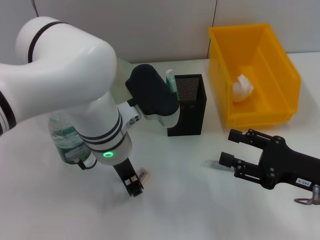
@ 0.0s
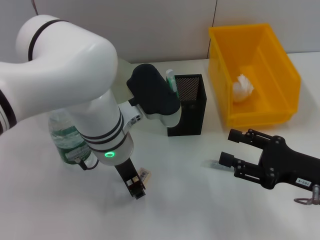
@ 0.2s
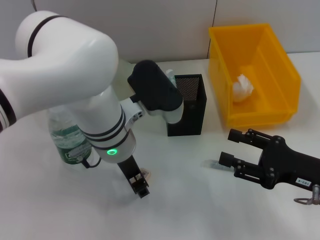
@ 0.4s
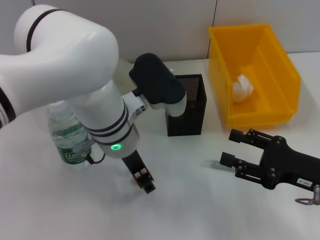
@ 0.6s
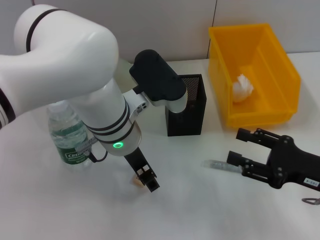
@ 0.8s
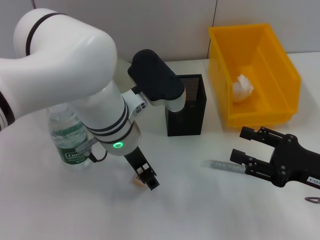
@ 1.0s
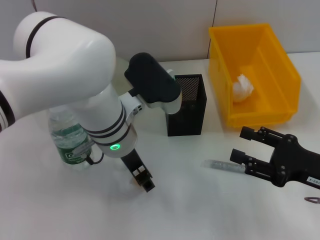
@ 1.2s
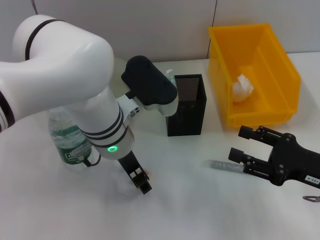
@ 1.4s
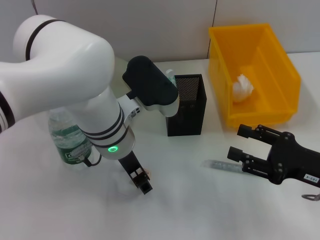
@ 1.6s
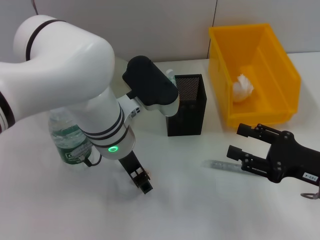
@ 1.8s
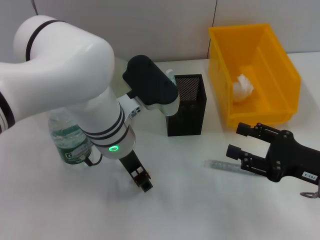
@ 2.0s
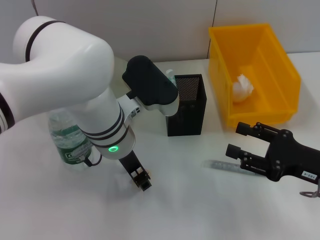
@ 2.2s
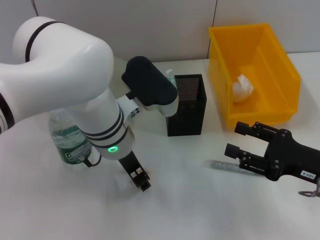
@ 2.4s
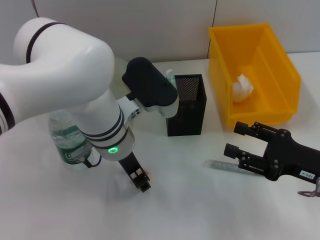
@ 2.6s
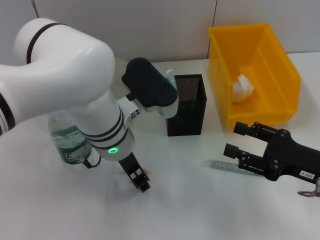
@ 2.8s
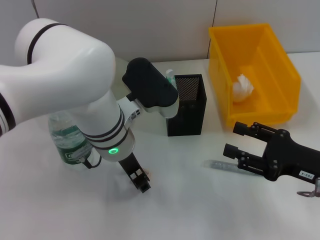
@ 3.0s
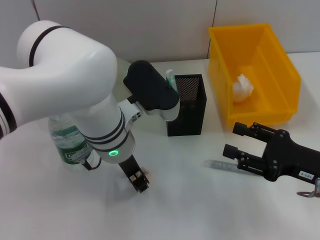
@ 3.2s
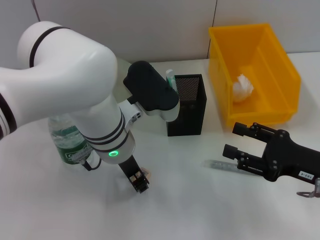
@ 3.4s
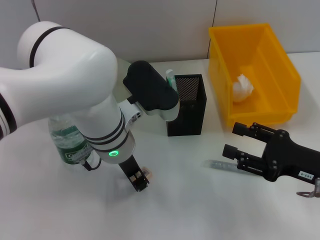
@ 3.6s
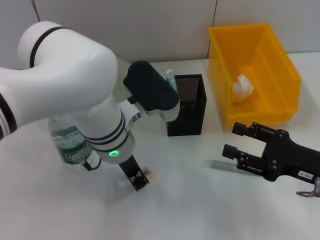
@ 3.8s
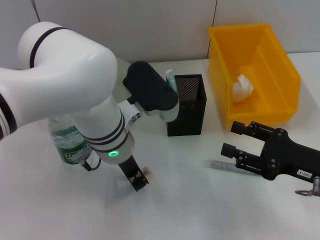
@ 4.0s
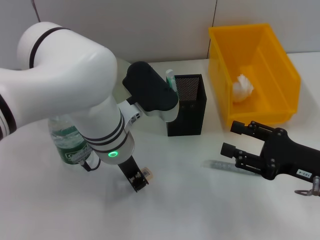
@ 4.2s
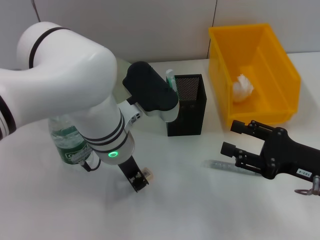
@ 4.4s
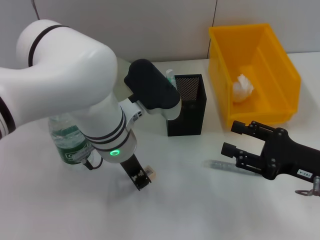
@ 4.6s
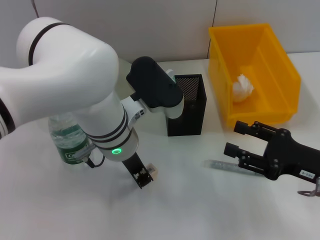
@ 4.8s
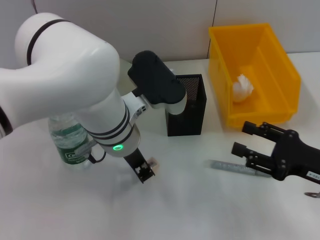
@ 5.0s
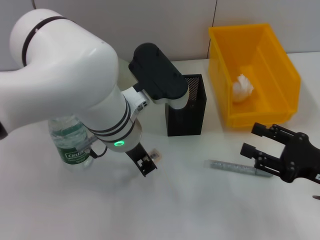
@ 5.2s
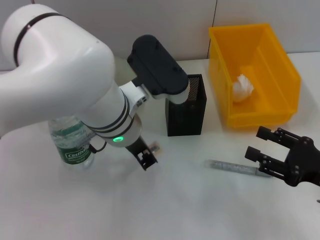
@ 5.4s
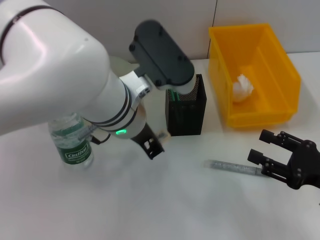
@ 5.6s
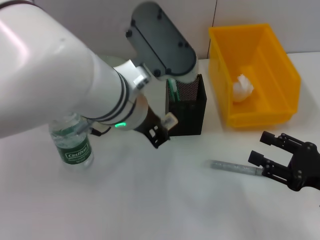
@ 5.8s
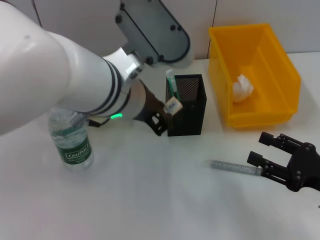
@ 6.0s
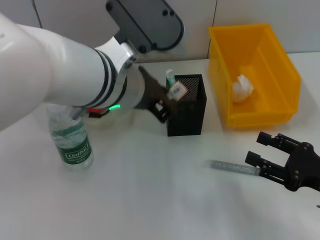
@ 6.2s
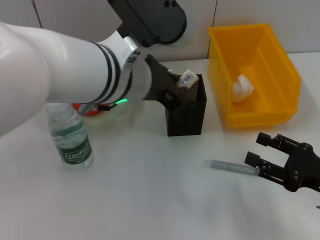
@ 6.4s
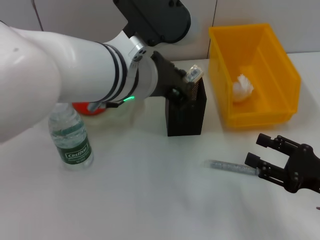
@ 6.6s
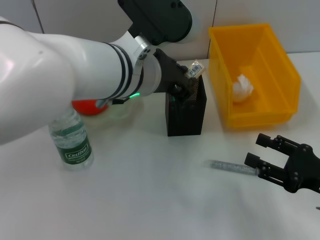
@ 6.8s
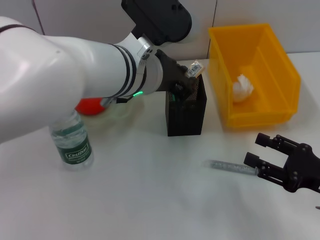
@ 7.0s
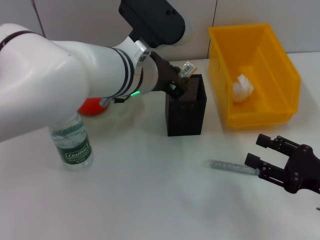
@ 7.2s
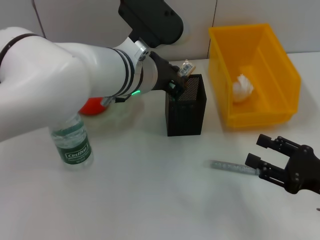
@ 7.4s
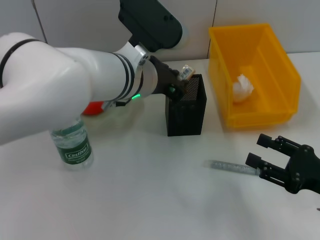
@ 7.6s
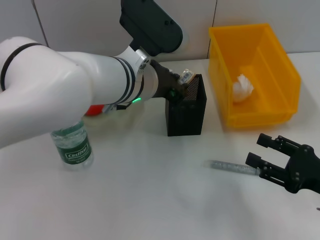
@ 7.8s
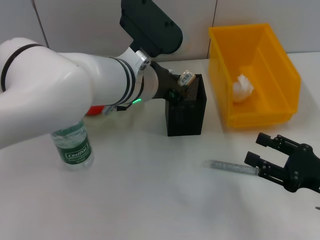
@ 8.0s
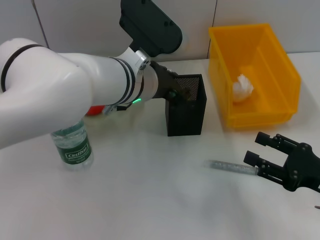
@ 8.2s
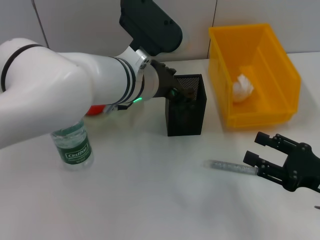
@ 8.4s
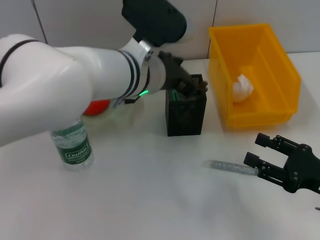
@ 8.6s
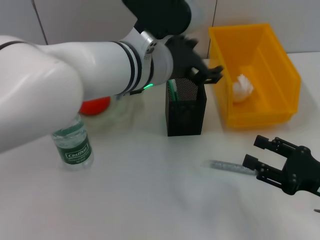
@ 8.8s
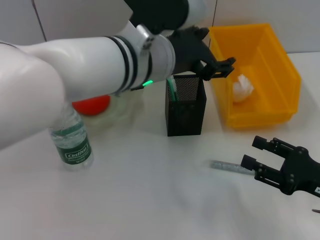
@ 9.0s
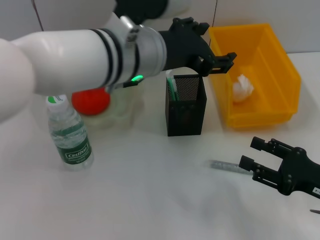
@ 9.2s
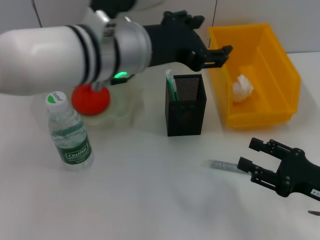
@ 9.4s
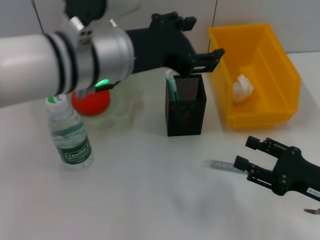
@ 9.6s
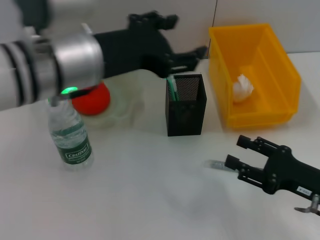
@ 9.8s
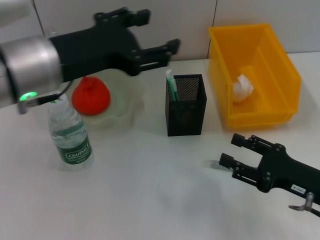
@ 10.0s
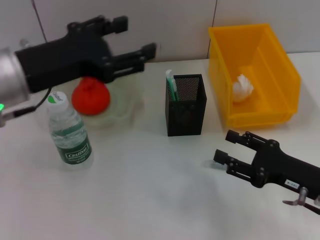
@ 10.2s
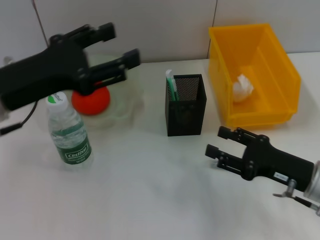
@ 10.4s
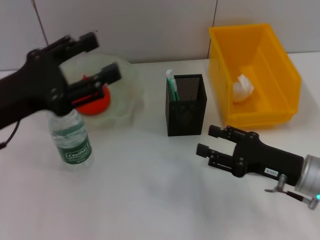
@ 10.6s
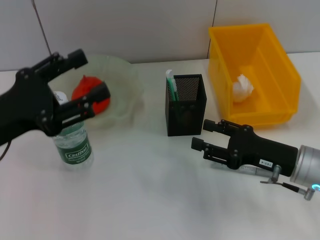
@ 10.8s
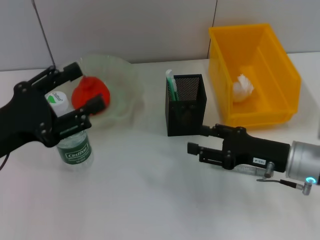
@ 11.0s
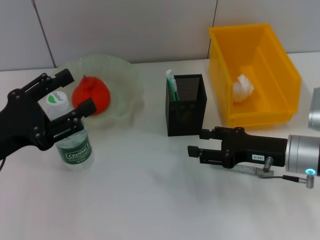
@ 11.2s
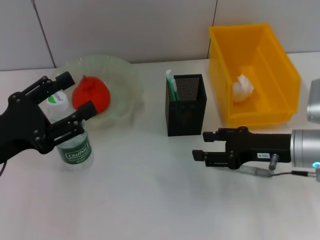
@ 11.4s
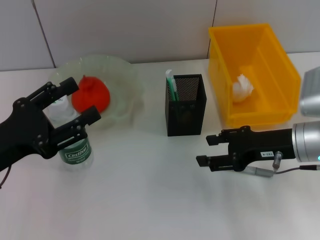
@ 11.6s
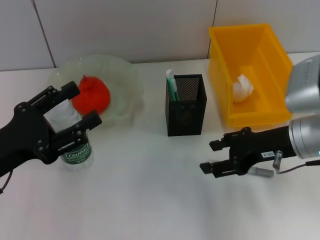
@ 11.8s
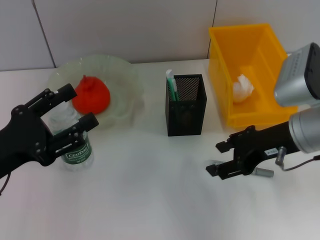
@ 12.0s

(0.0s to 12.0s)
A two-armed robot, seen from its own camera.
Step, 0.0s - 4.8s: Grab the eraser with the left hand.
Step, 5.0s - 8.2s: Place the eraser into the pen holder with the left hand.
0.0s - 1.6s: The left gripper opens its fingers.
1.6s - 3.0s: Neither gripper changes place.
3.0s - 4.4s: The left gripper closes its fingers.
4.4s - 6.0s: The left gripper is displaced upward by some 10 cm.
6.0s - 7.6s: The left gripper is displaced forward by some 5 cm.
7.6s - 9.0s: The left gripper moves roughly 5 cm, and opens its fingers.
9.0s - 10.4s: The left gripper shifts some 20 cm to the left, while the right gripper shifts by approximately 5 cm.
10.4s - 12.0s: The left gripper goes roughly 10 cm downward and backward, while the right gripper shifts some 15 cm upward and forward.

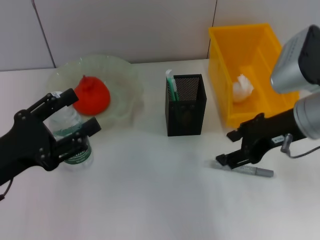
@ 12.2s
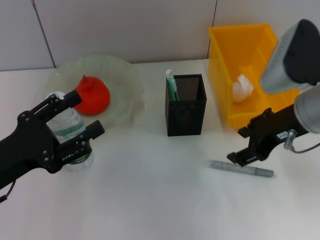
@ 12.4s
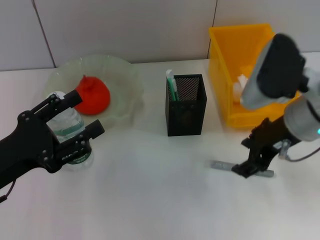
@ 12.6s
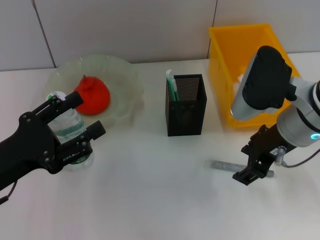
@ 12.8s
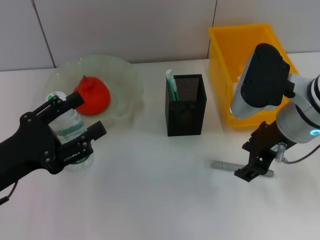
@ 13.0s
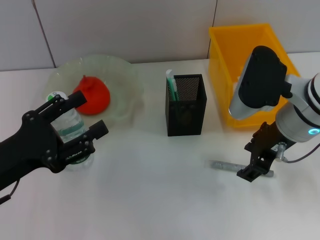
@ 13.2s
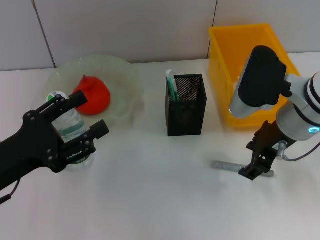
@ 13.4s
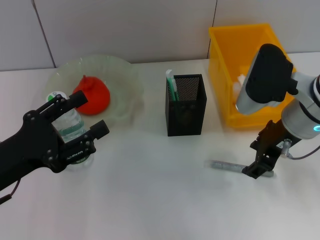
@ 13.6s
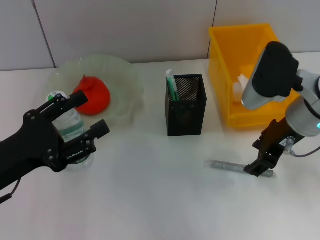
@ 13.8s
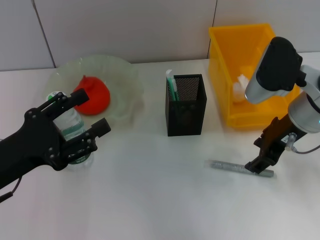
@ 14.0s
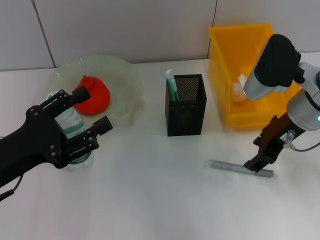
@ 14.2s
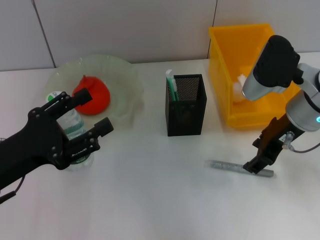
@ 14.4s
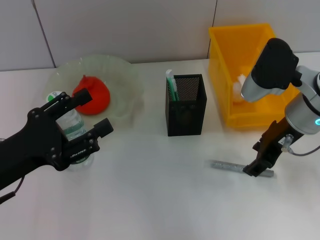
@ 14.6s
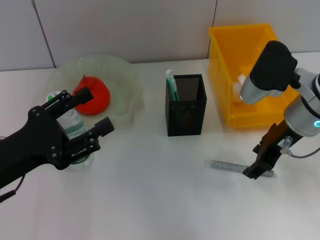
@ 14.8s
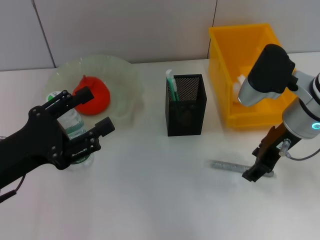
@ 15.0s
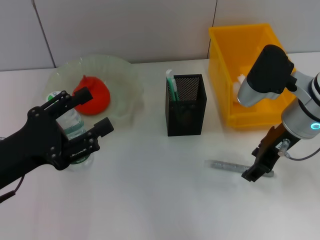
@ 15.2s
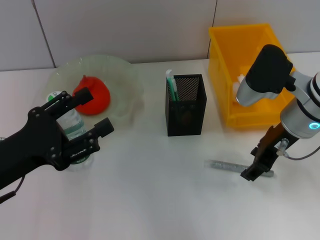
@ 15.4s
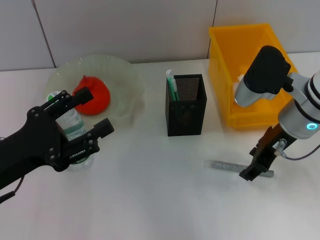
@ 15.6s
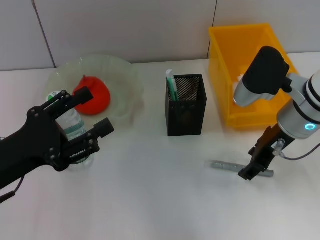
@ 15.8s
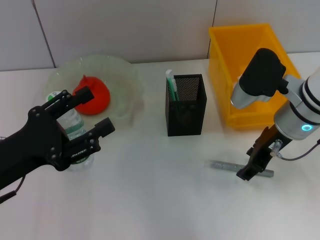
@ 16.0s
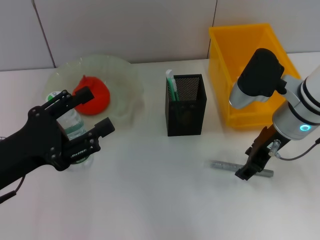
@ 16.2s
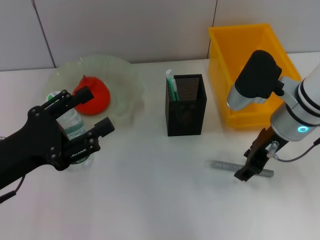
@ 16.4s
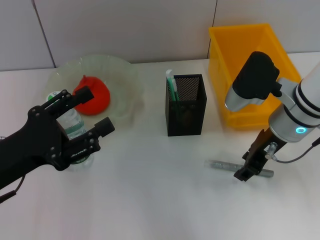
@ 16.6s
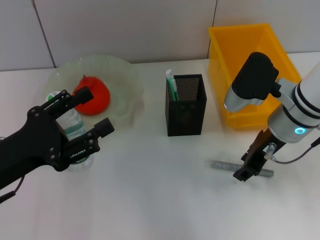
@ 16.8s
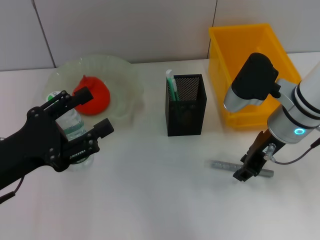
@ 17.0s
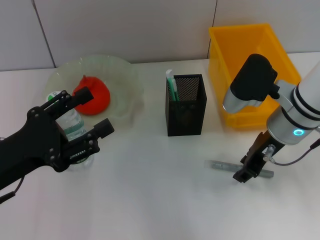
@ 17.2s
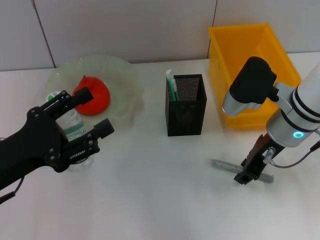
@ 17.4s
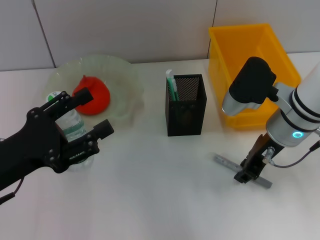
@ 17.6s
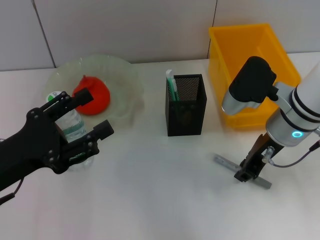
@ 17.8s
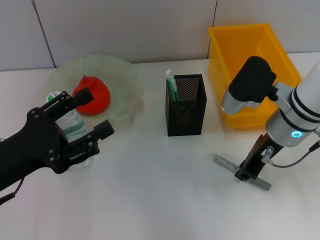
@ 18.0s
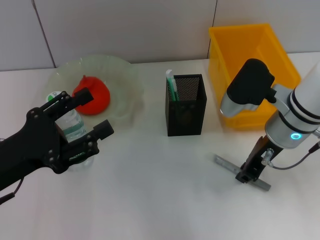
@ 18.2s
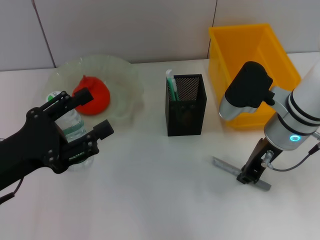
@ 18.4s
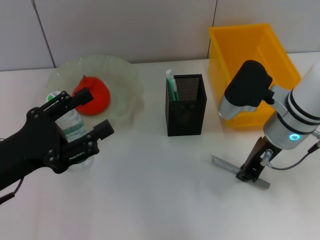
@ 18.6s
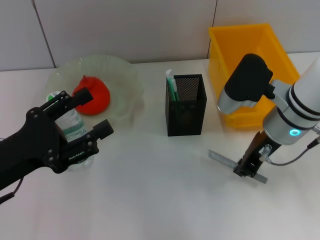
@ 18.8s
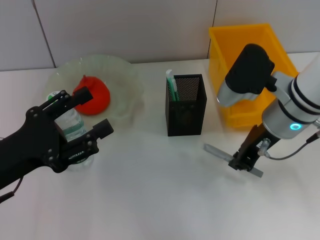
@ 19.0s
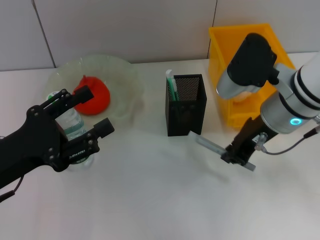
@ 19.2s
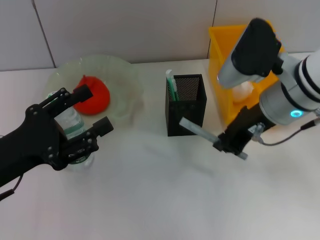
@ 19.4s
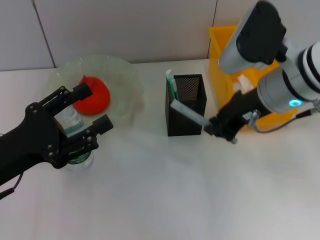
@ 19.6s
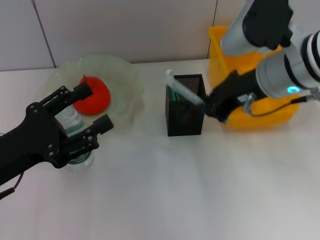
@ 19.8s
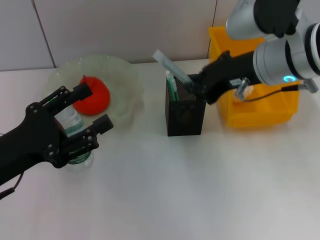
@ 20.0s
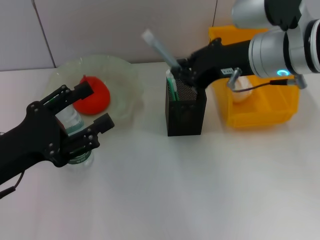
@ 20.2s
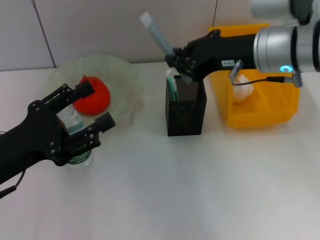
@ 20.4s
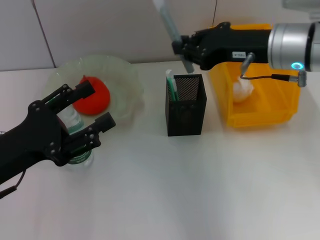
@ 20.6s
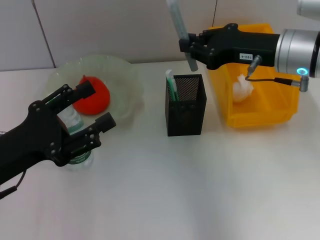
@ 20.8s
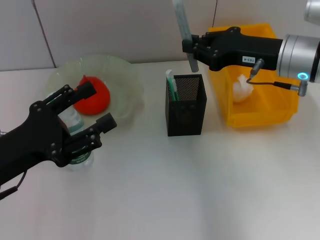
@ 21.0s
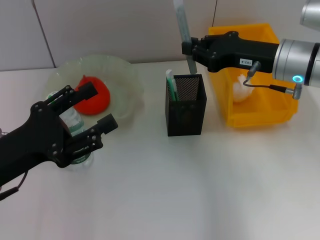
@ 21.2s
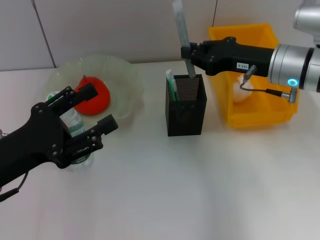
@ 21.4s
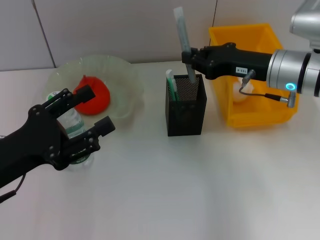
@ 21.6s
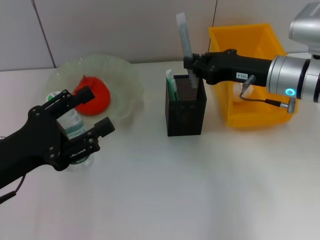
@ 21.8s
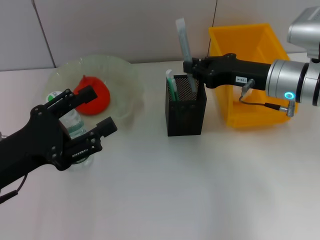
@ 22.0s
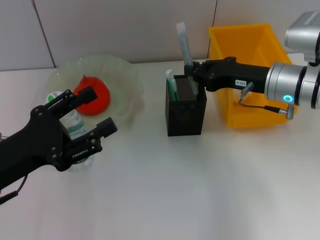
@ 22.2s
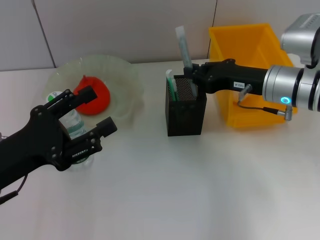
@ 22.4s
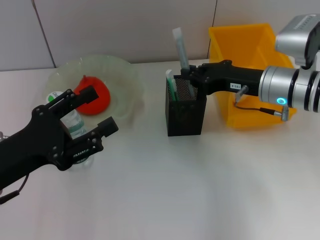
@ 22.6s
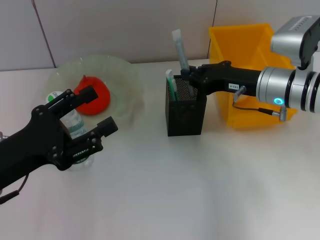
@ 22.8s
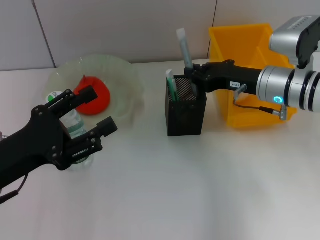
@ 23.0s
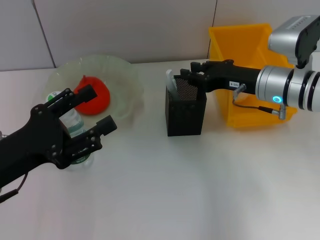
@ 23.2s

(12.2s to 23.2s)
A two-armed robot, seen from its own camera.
Step, 12.2s - 18.2s: Grab the gray glue with the right hand.
Step, 18.4s - 23.2s: Place the gray glue into the pen holder with the right hand.
13.8s - 17.0s: The grippers stay close to where they were, moving slightly.
17.0s - 18.4s: The right gripper closes.
18.4s - 20.0s: The right gripper shifts some 10 cm upward.
20.0s - 21.6s: The right gripper goes approximately 10 cm downward and to the right.
21.6s - 23.2s: The grippers stay close to where they were, moving slightly.
